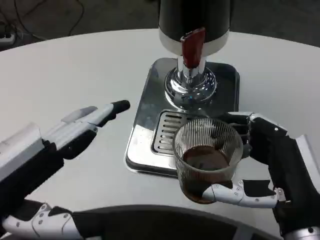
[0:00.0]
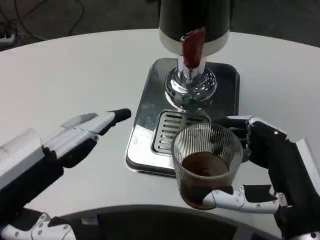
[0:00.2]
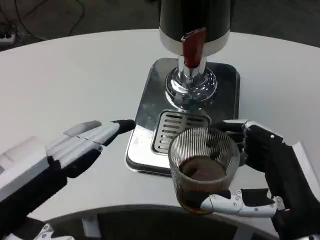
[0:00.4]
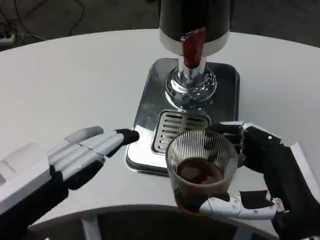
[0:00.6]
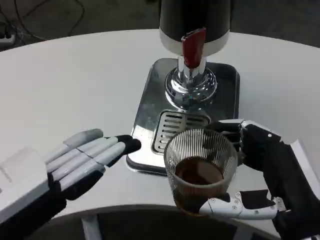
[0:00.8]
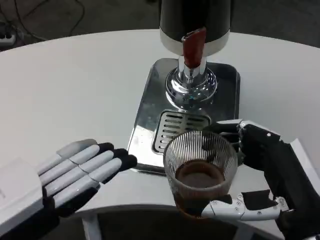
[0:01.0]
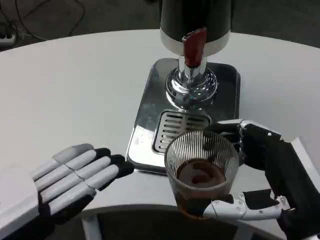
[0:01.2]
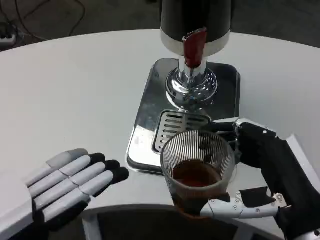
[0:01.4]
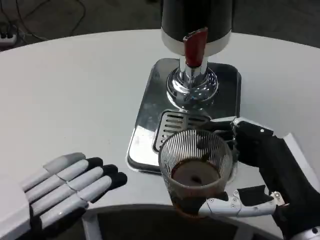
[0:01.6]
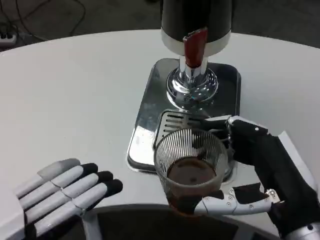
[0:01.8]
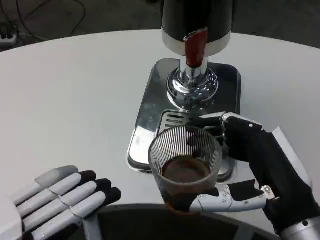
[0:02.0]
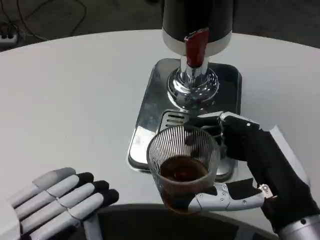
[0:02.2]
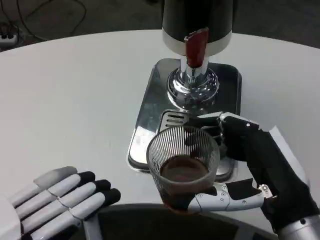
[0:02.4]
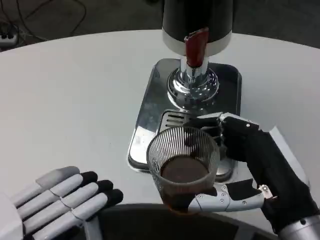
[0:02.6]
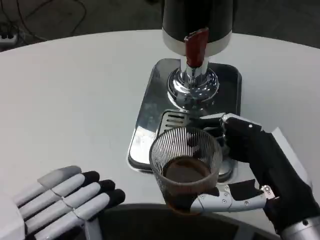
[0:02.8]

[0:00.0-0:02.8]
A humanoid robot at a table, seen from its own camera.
Task of the whole recording: Grasp the cup under the faucet to collect the drink, then remove the cup.
0:00.0 to 0:01.4: The left hand shifts by approximately 5 cm.

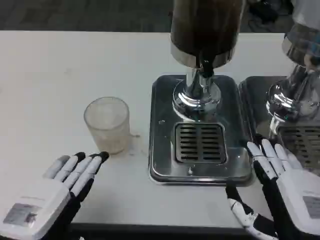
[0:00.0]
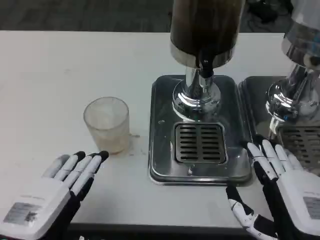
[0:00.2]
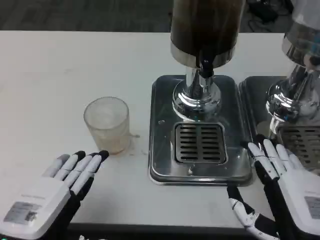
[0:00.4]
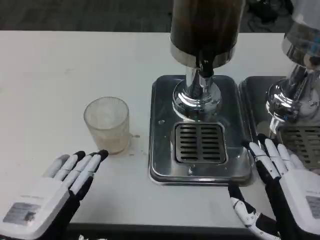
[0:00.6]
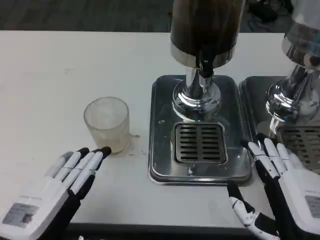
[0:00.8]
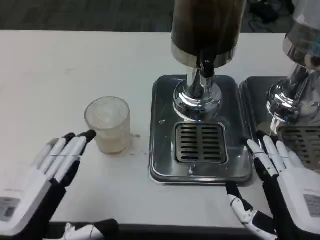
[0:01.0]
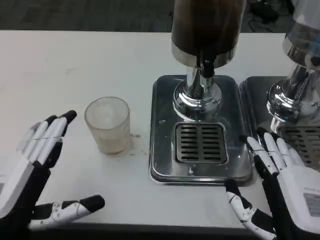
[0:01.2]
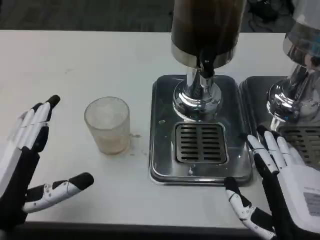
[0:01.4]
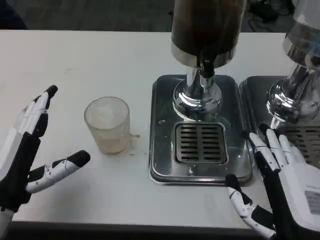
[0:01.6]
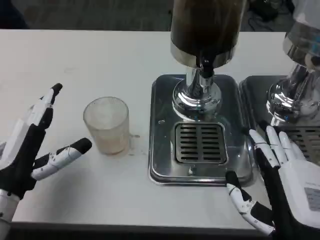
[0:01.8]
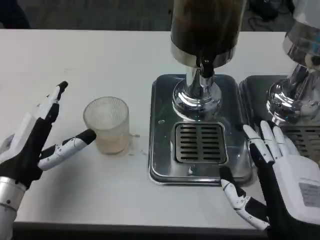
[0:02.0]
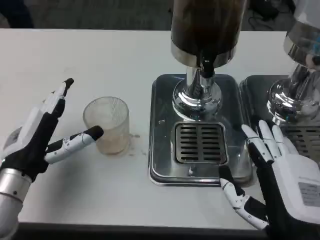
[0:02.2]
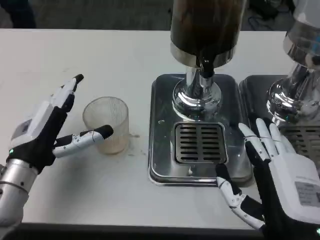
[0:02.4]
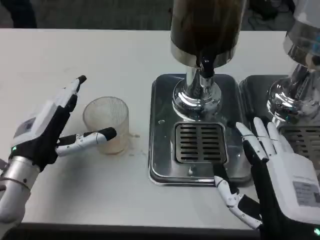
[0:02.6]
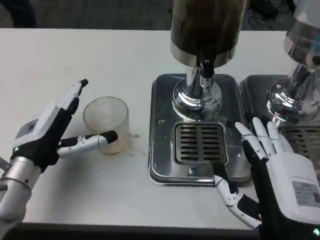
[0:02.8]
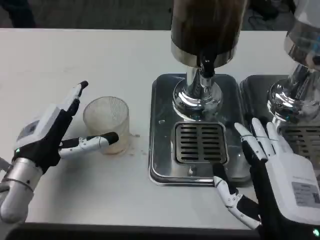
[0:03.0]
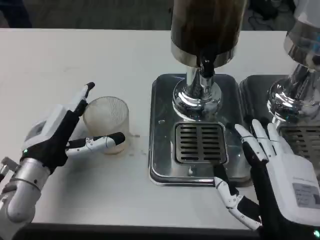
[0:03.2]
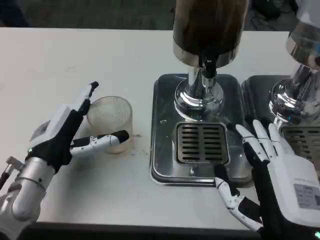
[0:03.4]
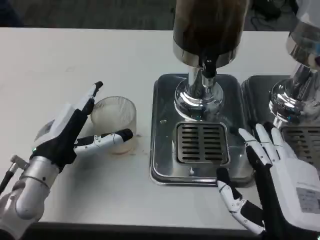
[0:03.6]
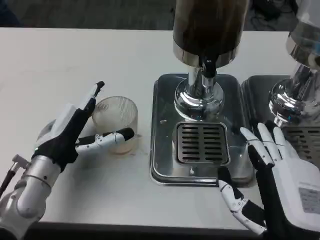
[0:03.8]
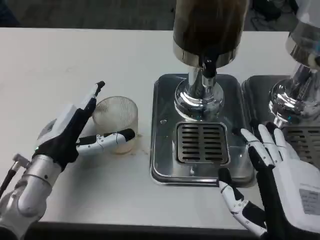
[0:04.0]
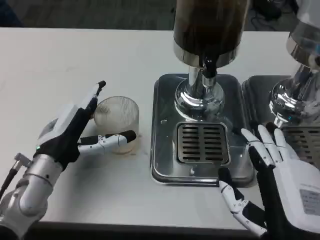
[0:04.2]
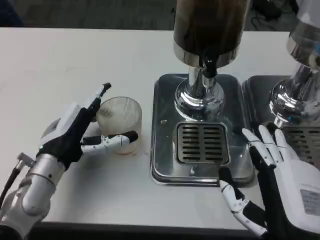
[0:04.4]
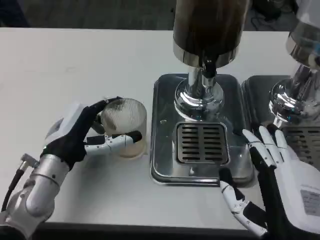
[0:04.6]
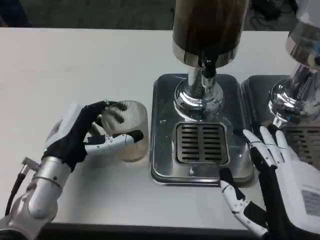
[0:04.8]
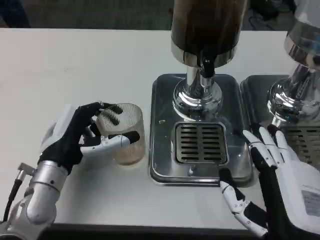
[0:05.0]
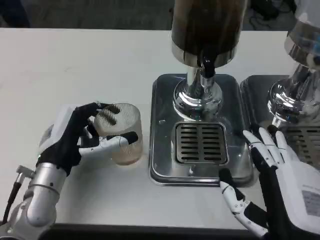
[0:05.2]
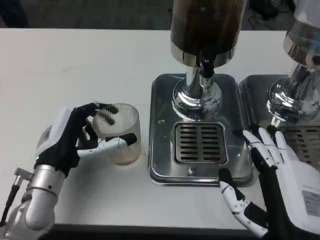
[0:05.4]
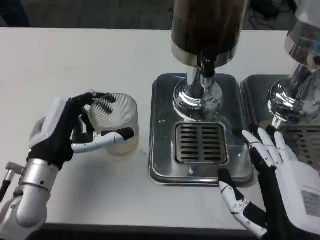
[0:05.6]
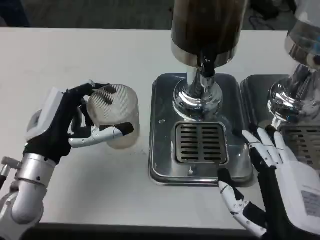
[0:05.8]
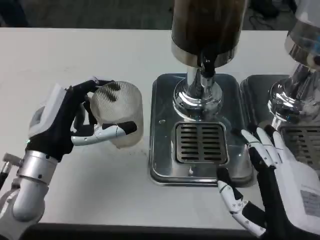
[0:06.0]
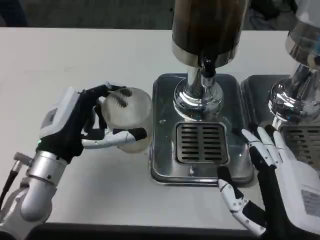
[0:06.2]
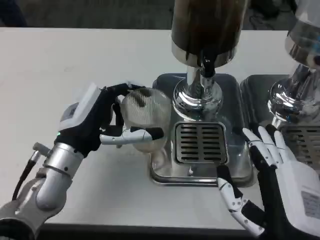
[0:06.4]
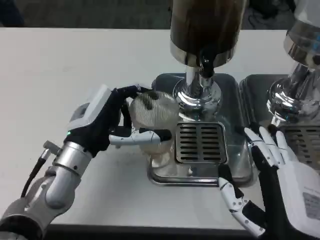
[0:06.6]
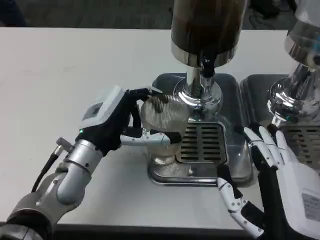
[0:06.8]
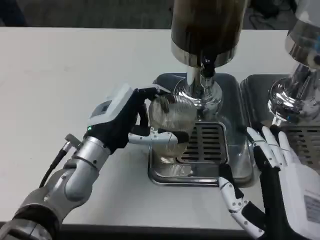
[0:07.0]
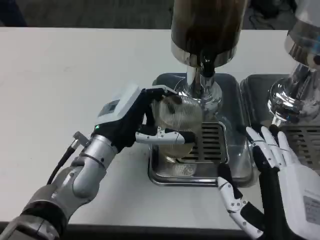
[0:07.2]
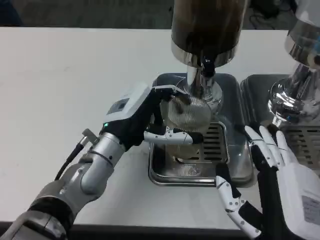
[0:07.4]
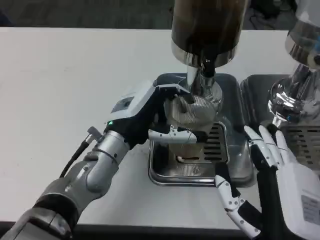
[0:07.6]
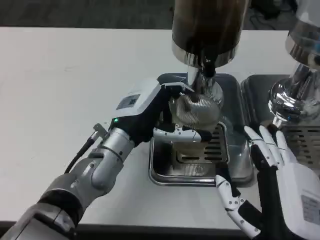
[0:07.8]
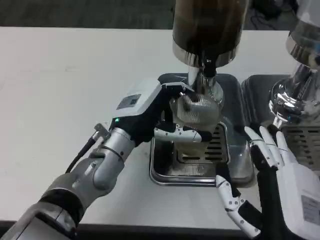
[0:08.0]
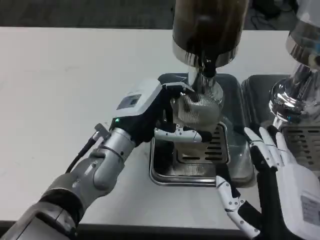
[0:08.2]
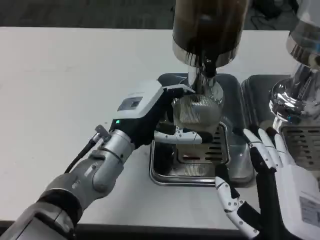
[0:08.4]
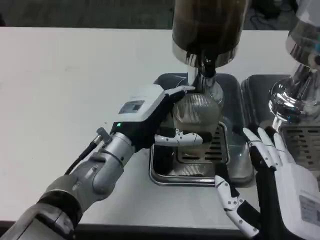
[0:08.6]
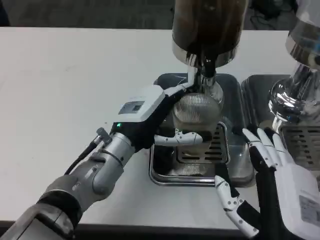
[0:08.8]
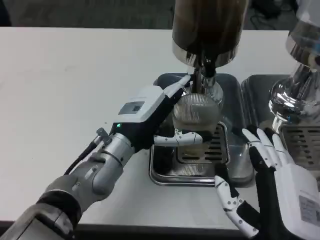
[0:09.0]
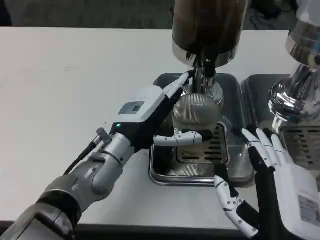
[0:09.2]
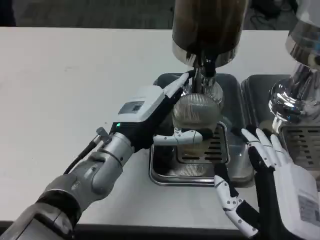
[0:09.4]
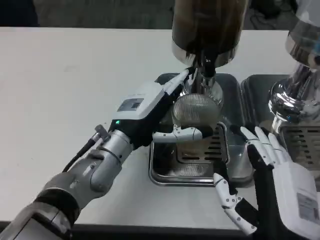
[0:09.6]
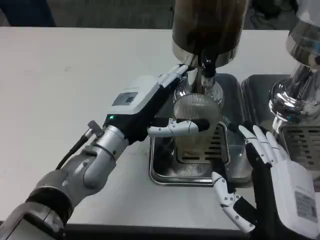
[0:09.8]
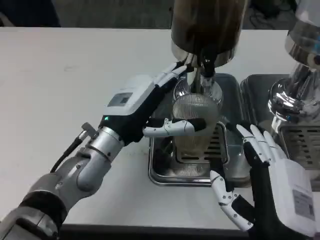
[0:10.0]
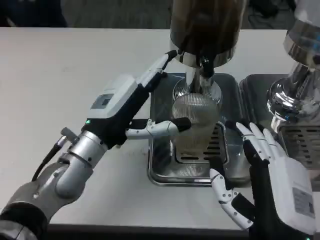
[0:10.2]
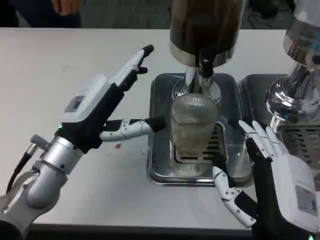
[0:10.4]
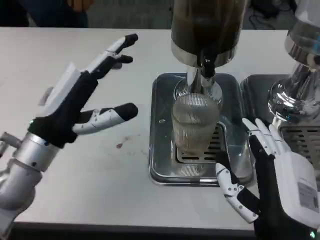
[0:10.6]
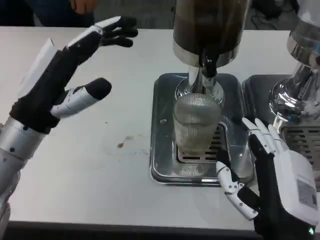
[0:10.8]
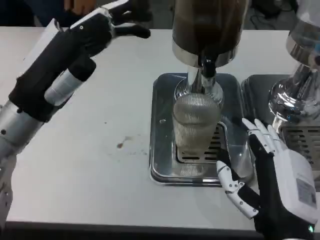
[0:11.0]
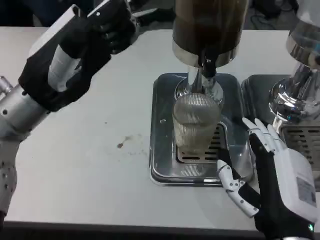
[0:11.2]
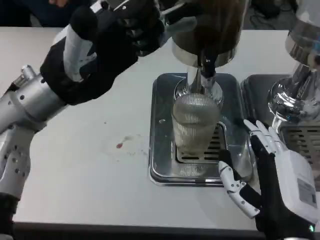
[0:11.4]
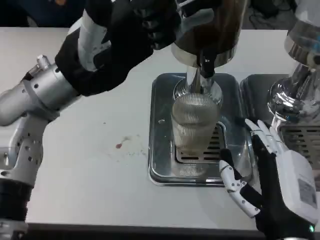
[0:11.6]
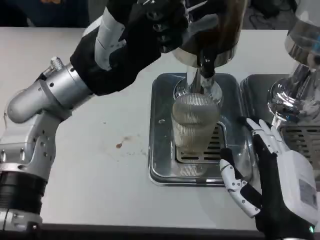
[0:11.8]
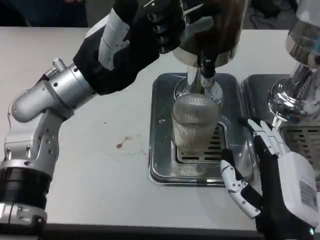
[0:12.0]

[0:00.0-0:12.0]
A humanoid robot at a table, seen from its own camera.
Task of the whole recording: Grasp the cup under the faucet to collect the drink, then remove the cup.
0:00.0 to 0:01.6: The left hand travels forward by about 5 cm.
0:01.6 to 0:03.0: The left hand is displaced forward by about 10 cm.
0:06.0 to 0:07.6: The left hand shifts approximately 10 cm to the right.
0:07.6 to 0:09.0: The hands make only small movements.
0:09.0 to 0:10.4: The left hand travels to the left by roughly 10 cm.
0:10.4 to 0:12.0: The left hand shifts roughly 10 cm upward and forward.

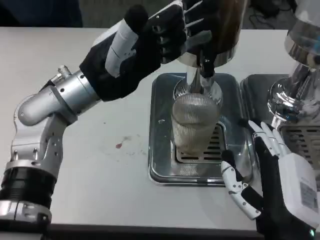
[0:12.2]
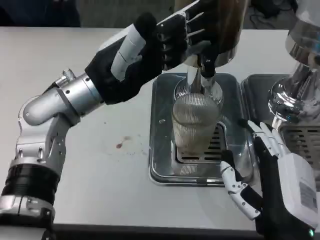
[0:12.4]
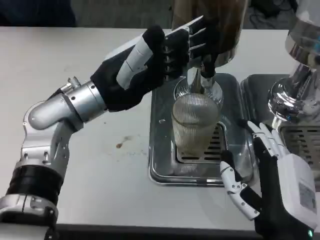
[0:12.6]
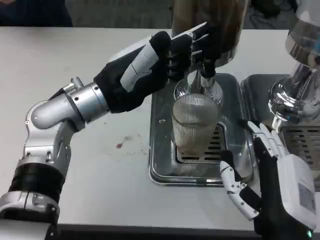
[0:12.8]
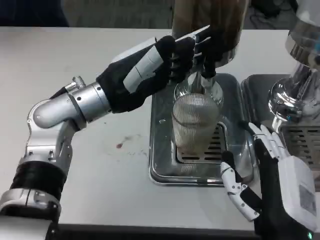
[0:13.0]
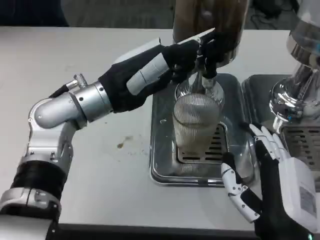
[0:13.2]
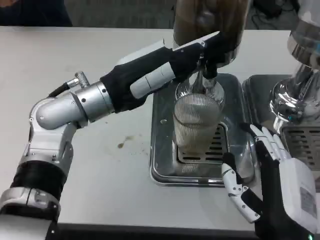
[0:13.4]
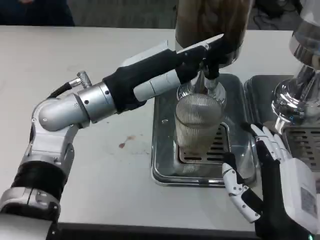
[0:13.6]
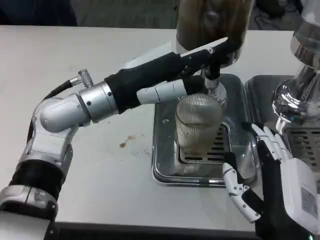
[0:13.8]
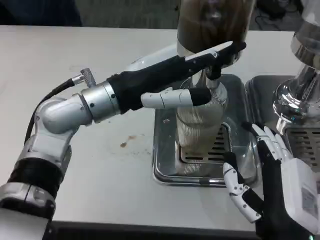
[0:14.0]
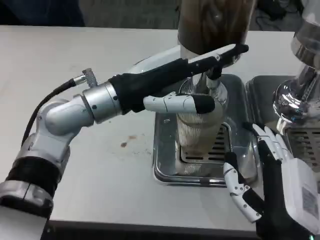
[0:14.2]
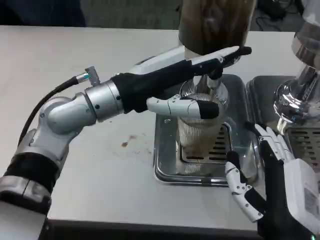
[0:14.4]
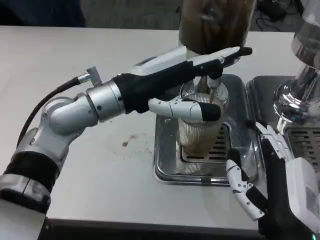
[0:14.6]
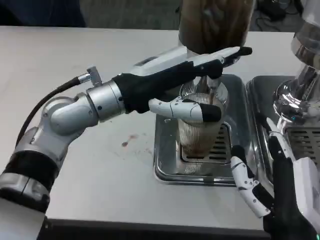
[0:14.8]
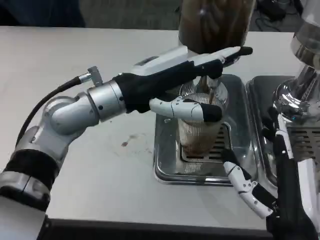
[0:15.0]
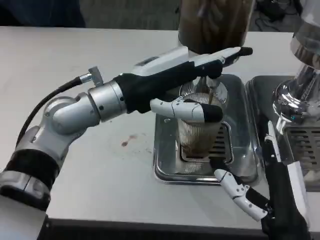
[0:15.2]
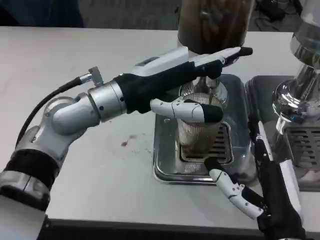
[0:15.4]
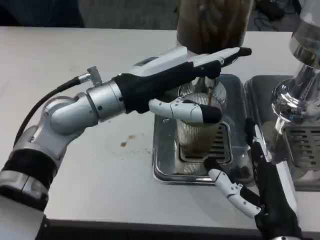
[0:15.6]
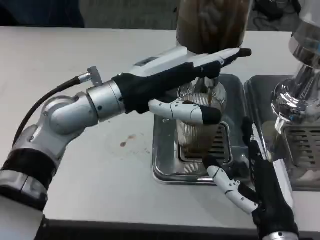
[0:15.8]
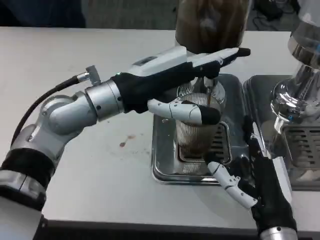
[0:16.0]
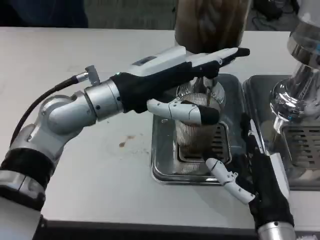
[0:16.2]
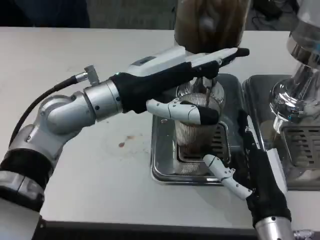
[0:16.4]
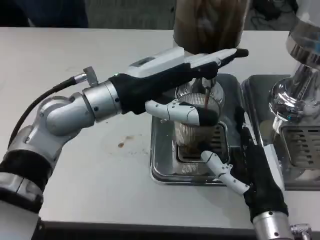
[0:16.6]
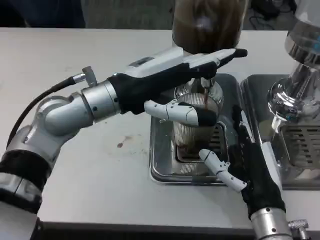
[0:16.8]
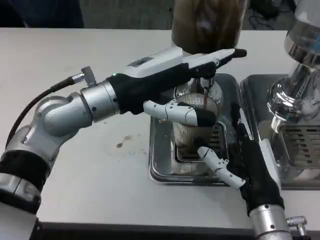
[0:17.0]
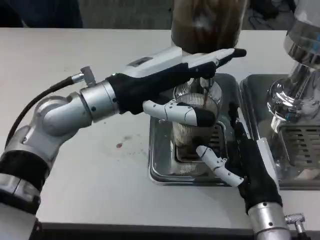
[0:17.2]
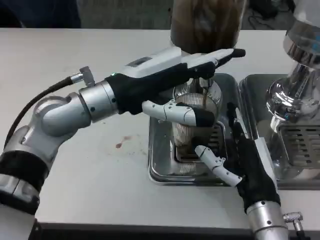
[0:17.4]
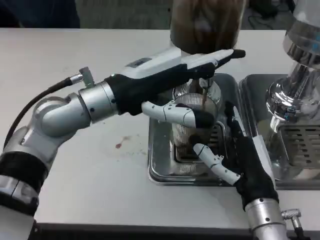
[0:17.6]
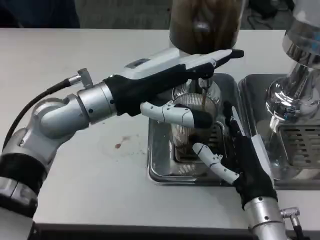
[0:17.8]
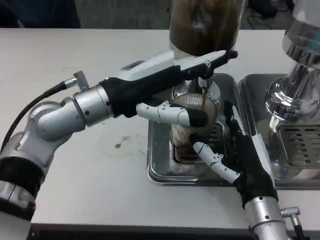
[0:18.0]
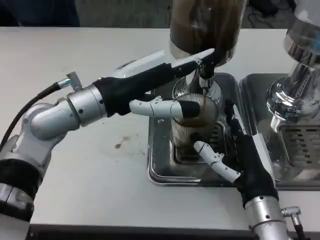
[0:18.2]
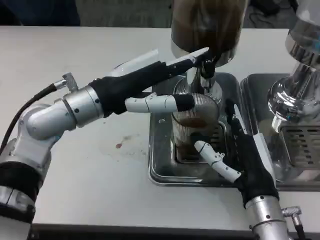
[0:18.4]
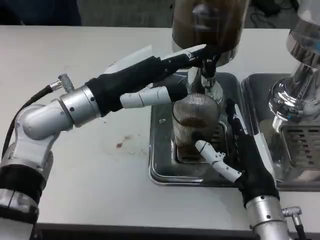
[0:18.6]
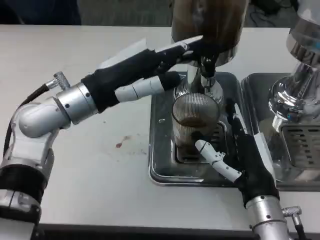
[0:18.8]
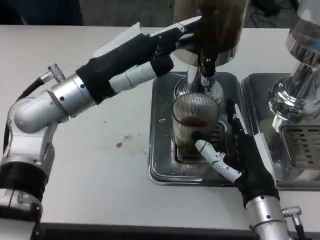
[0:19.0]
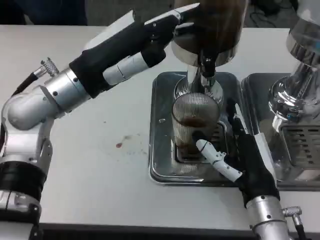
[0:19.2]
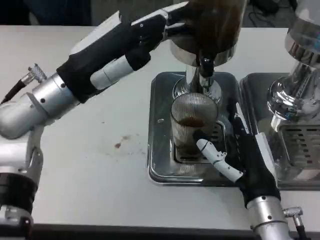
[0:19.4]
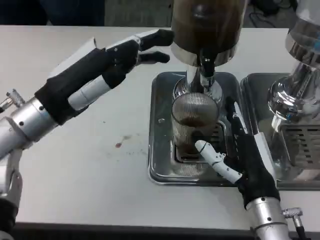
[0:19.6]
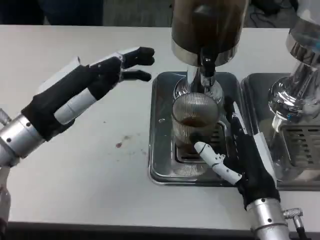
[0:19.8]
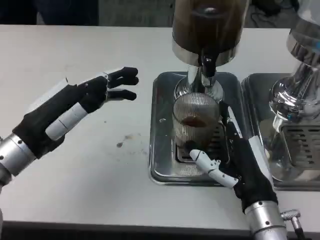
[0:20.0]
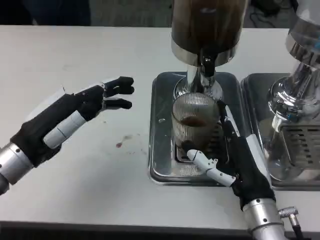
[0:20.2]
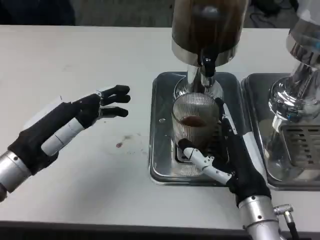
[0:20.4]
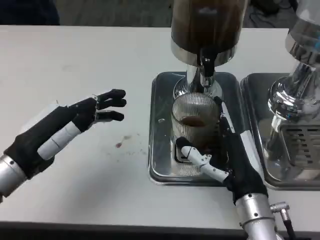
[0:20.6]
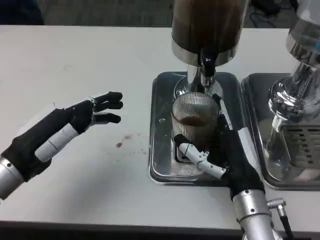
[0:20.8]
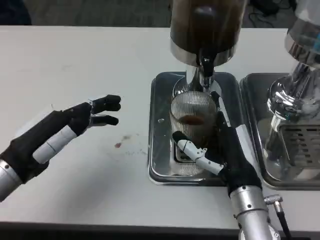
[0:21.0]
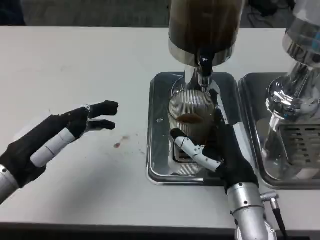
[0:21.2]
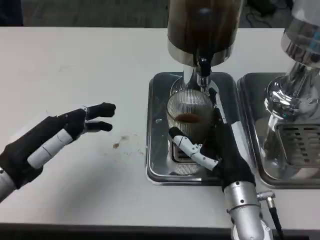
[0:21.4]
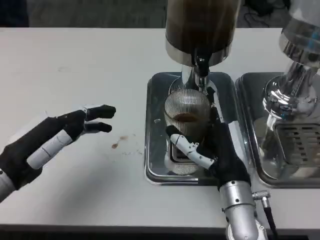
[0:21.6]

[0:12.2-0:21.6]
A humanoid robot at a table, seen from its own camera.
Task of the whole recording: Grasp the cup under the faucet to collect the drink, then remove the cup.
0:15.4 to 0:17.0: The right hand goes approximately 5 cm forward.
0:18.4 to 0:20.0: The left hand is displaced to the left and backward by approximately 10 cm.
0:20.0 to 0:21.6: The right hand moves about 5 cm.
